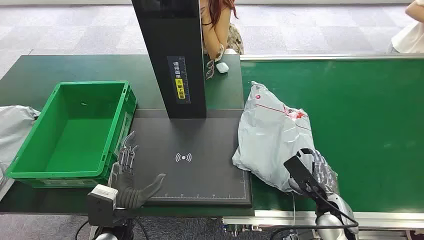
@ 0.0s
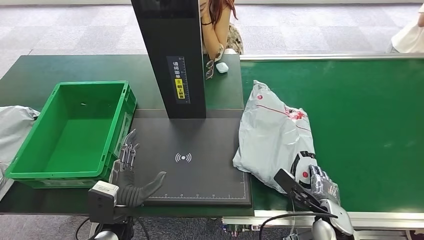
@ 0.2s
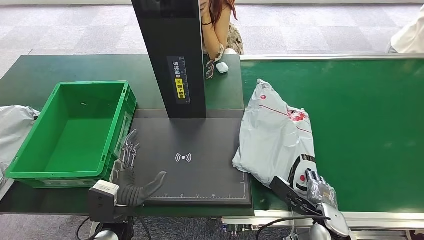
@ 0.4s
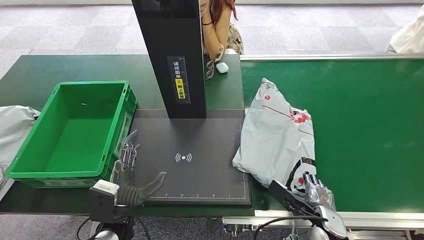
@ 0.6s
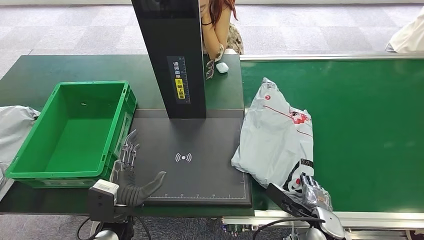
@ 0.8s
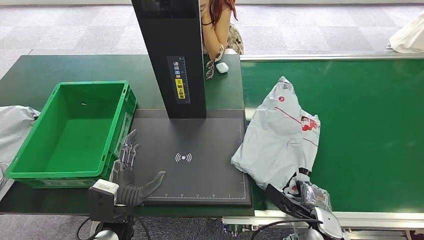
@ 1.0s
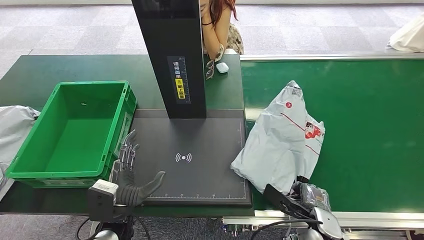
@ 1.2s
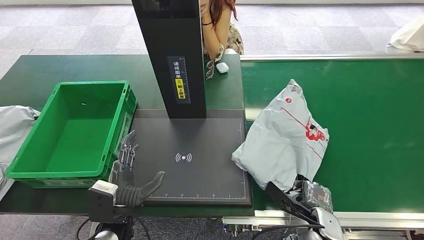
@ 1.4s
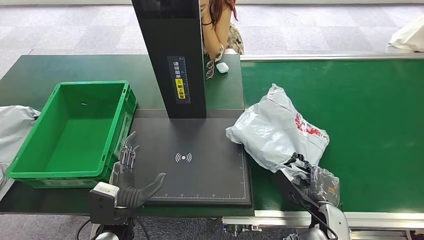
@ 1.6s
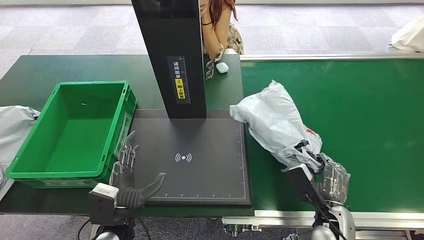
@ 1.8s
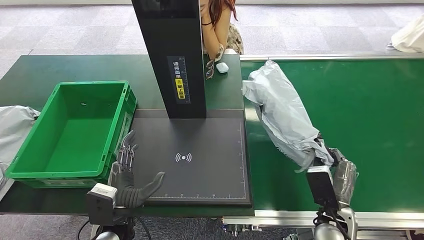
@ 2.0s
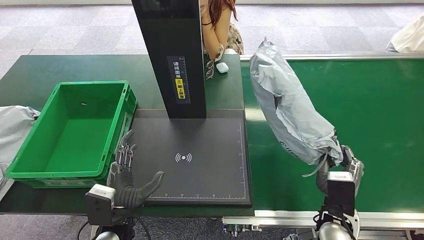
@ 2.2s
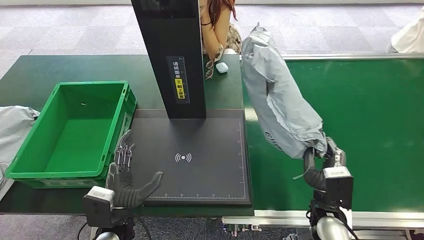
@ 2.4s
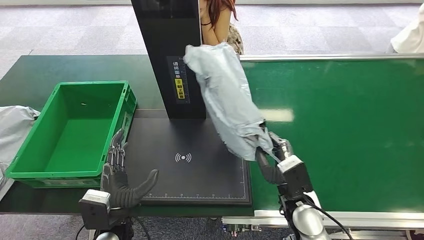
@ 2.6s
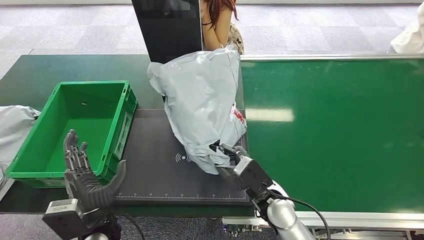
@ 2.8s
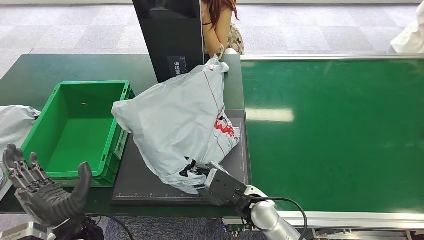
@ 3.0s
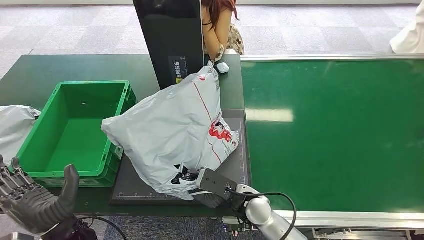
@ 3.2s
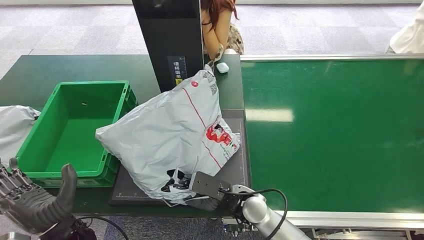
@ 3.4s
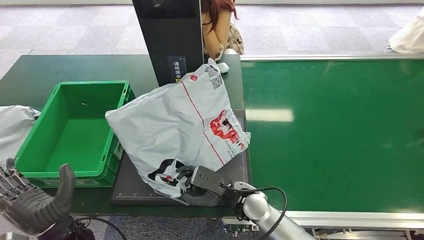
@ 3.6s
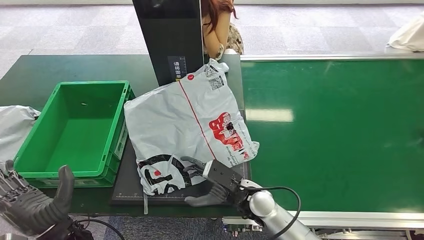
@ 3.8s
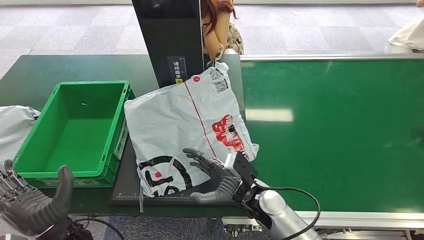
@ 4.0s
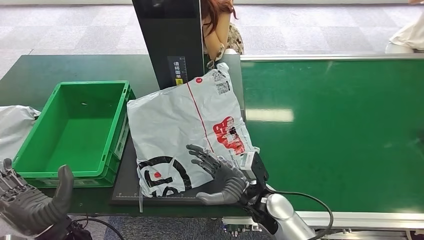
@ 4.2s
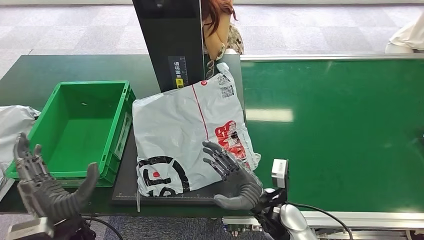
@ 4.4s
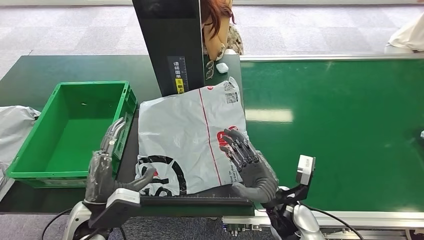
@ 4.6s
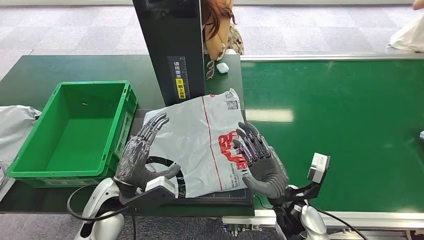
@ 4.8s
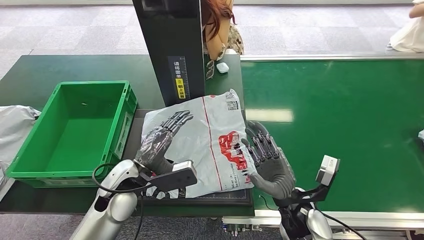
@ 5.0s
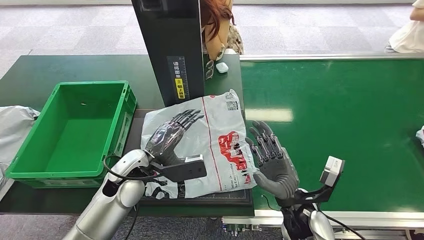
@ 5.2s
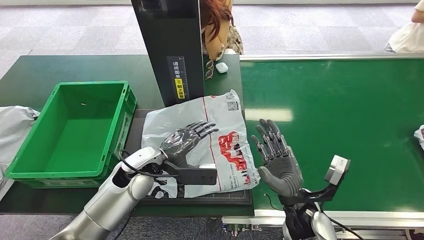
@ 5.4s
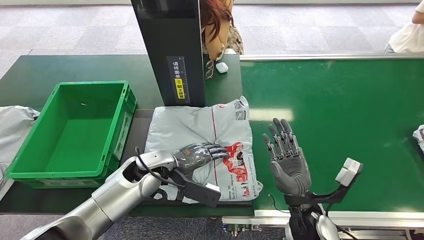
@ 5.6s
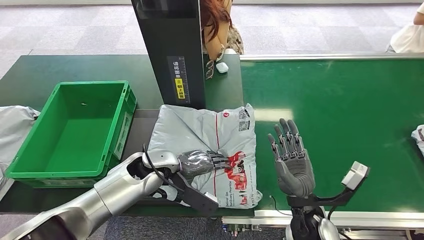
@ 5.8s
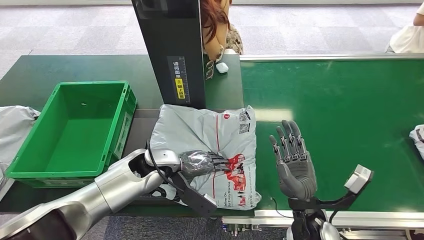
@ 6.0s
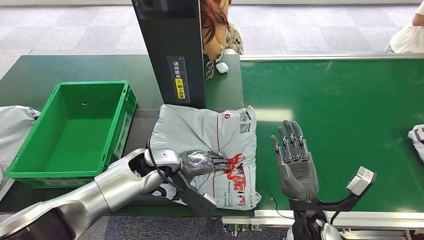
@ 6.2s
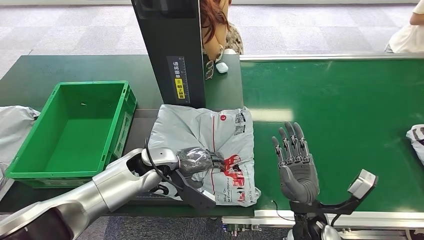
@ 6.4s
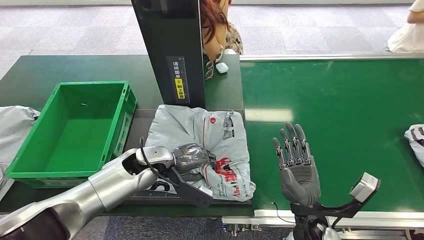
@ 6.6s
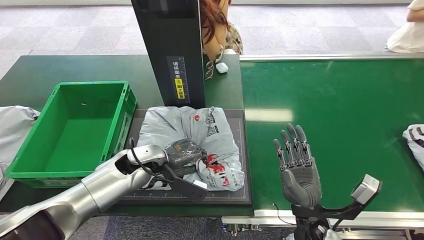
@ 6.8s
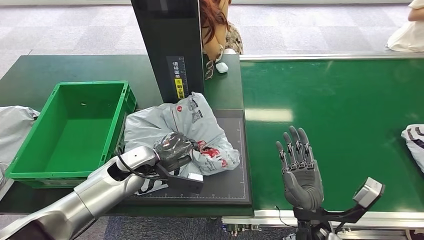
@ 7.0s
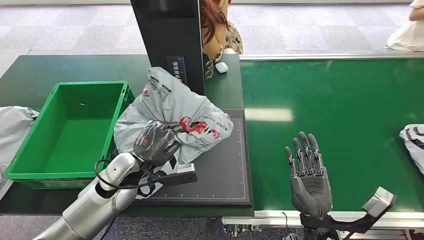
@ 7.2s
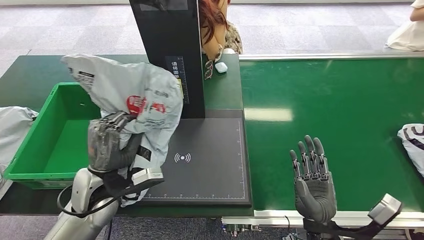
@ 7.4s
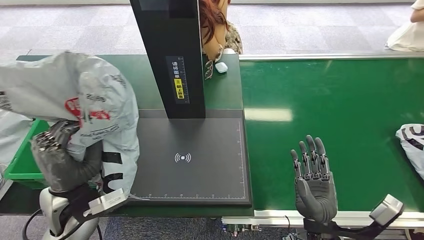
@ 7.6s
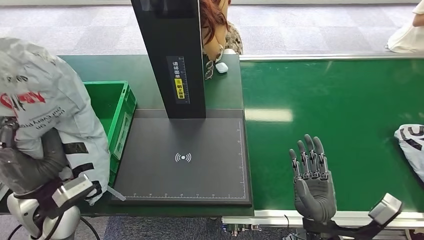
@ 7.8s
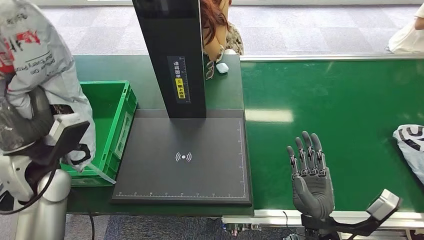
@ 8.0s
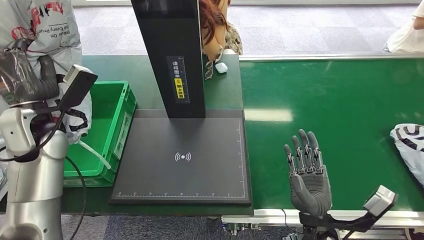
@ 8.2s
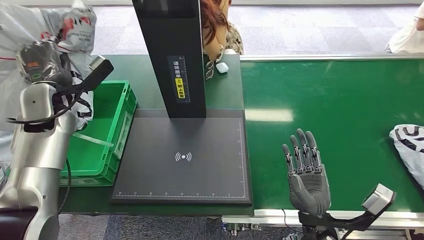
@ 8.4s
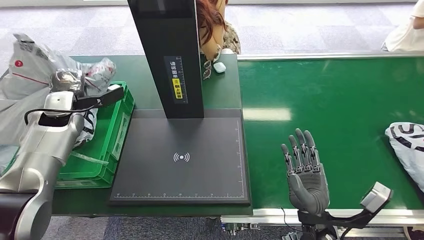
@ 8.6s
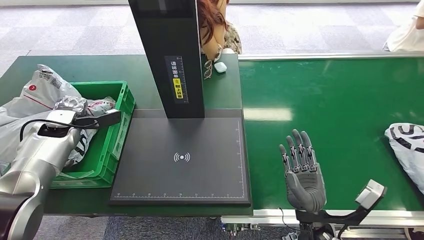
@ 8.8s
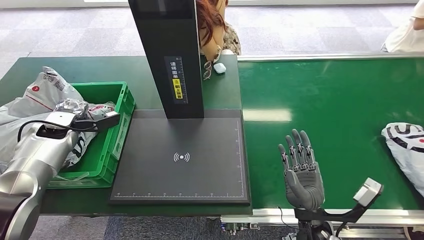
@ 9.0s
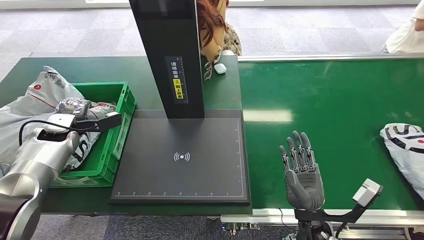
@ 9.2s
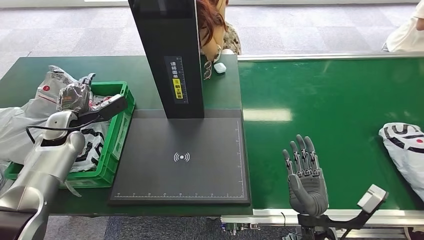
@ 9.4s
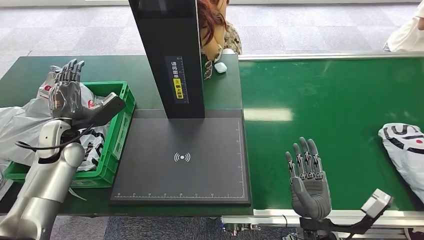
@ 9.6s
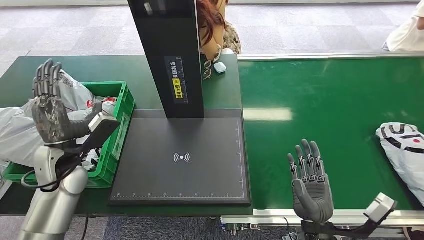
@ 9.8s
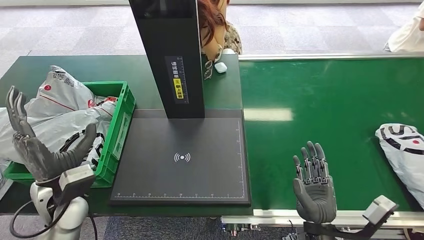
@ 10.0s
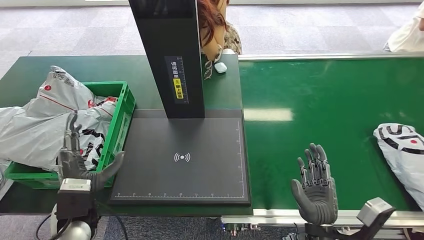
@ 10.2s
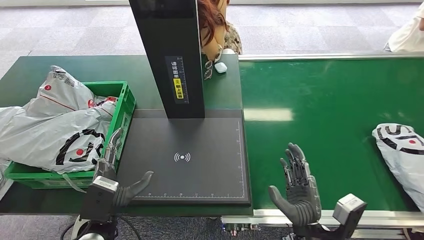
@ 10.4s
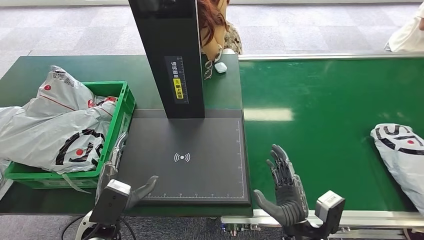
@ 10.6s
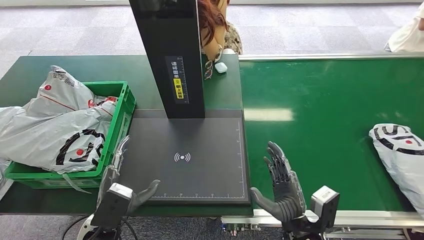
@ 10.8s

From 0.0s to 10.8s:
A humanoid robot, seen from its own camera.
Step, from 0.0s to 2.6s: Pick up the package from the conveyor belt.
Step, from 2.8s to 4.8s: Place the package onto the inbound machine.
Step, from 5.2s to 7.6s: Pick up the package from the inbound machine.
Step, from 7.8s to 10.8s: Place the package into the parcel locker.
